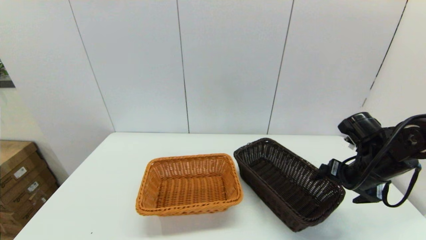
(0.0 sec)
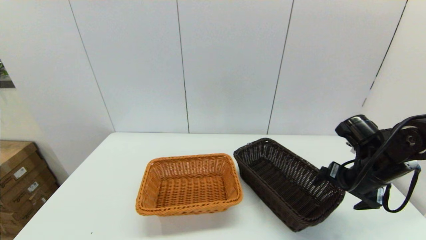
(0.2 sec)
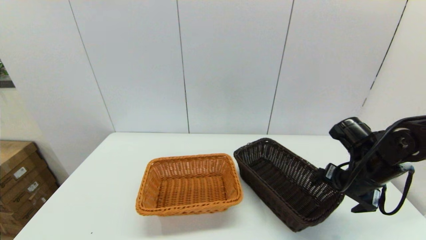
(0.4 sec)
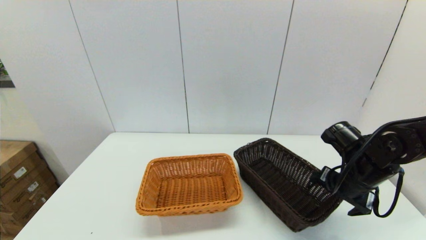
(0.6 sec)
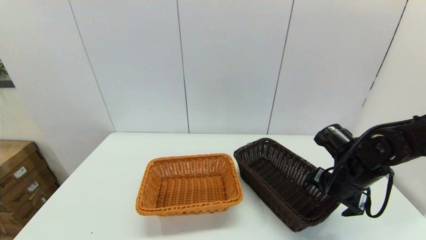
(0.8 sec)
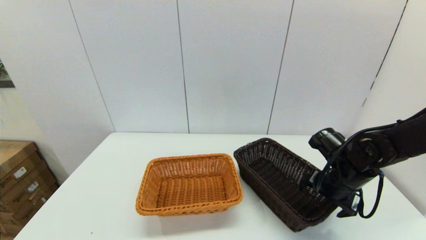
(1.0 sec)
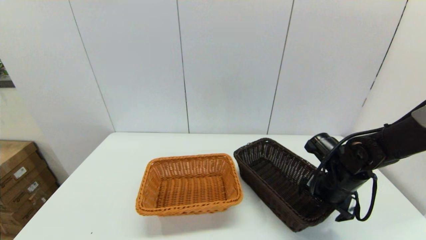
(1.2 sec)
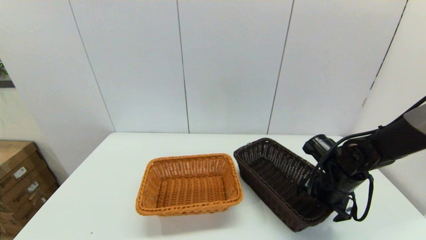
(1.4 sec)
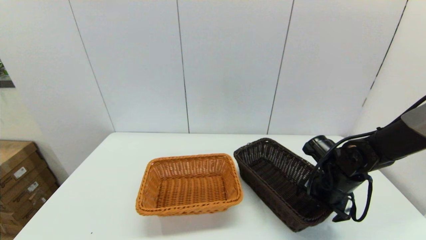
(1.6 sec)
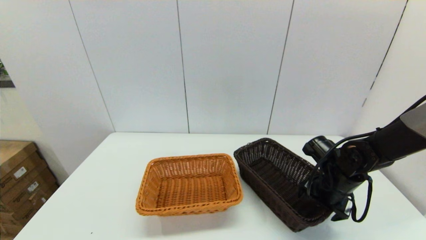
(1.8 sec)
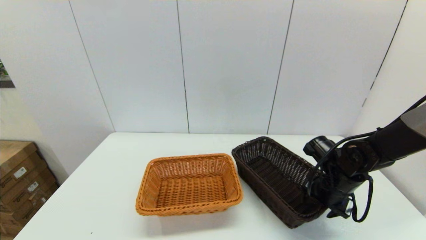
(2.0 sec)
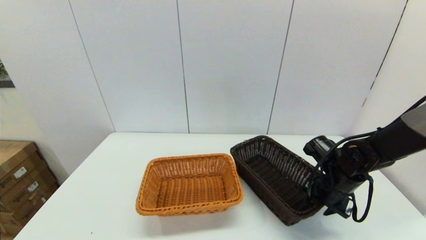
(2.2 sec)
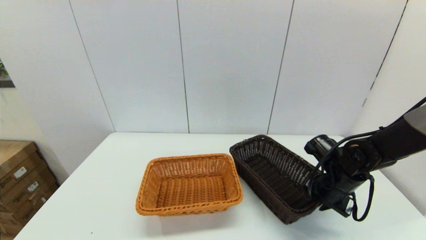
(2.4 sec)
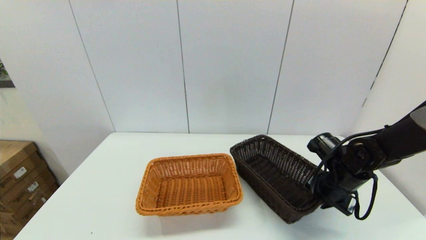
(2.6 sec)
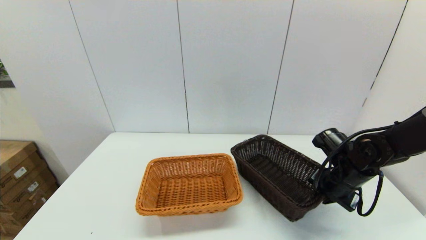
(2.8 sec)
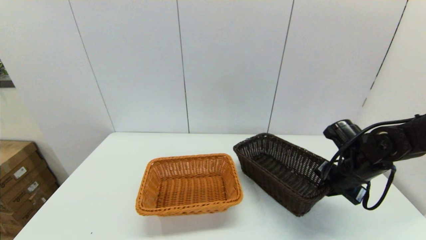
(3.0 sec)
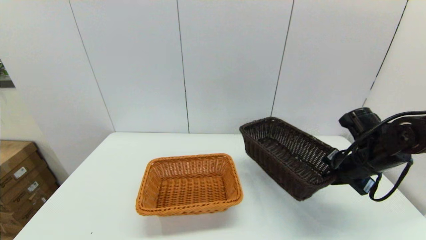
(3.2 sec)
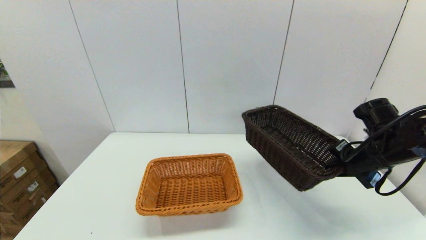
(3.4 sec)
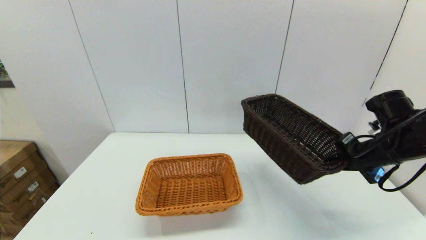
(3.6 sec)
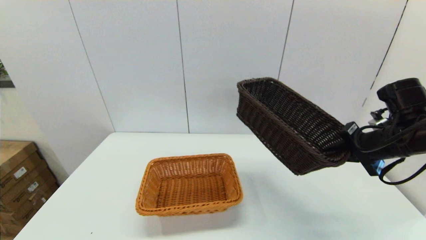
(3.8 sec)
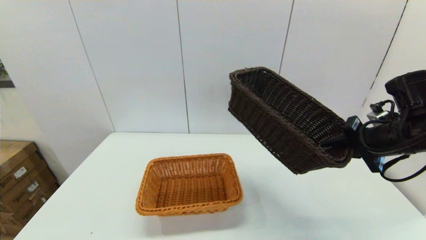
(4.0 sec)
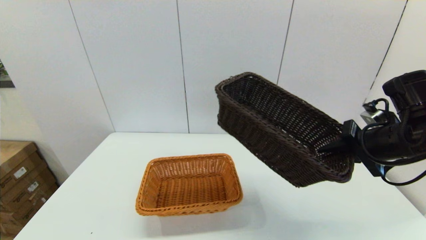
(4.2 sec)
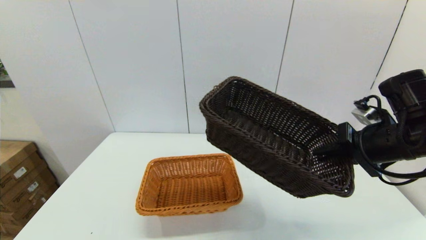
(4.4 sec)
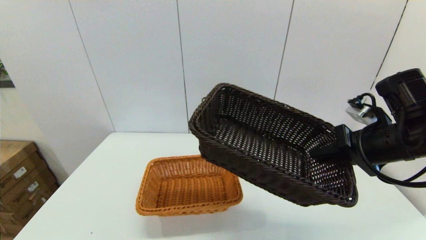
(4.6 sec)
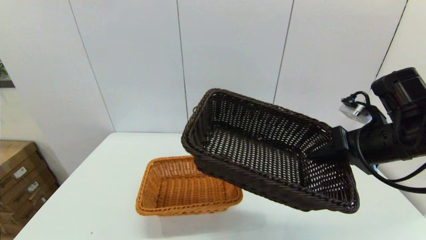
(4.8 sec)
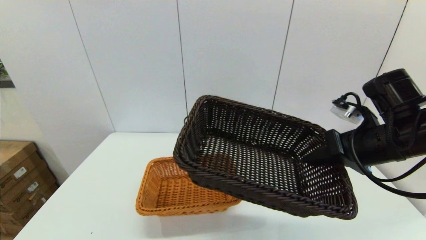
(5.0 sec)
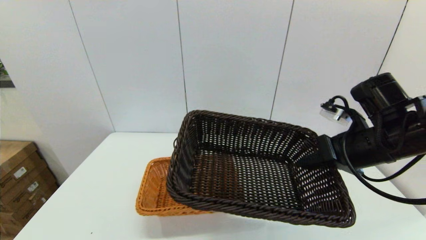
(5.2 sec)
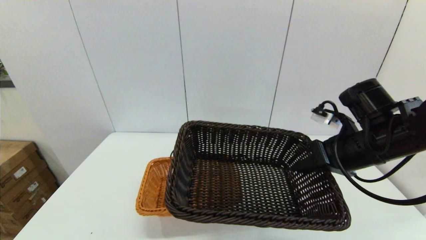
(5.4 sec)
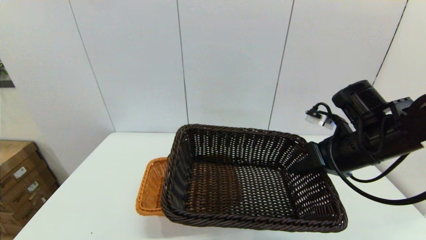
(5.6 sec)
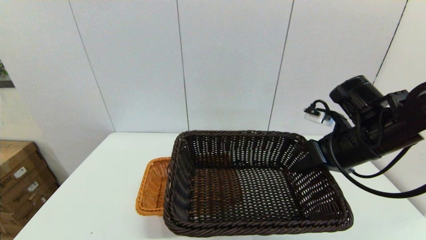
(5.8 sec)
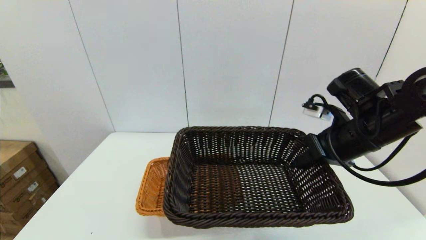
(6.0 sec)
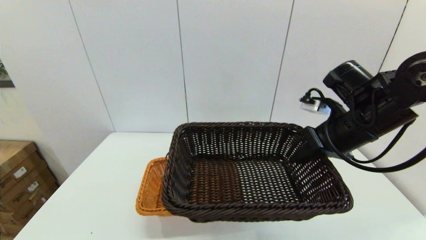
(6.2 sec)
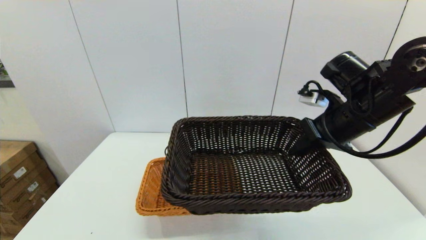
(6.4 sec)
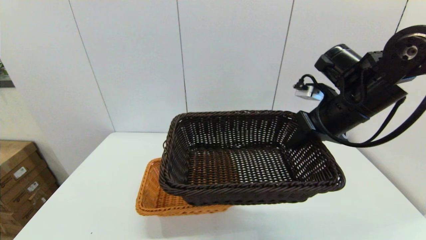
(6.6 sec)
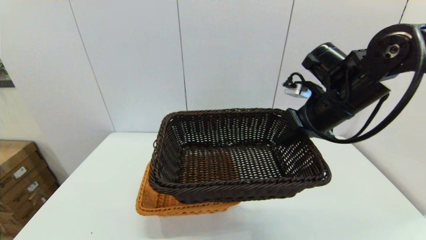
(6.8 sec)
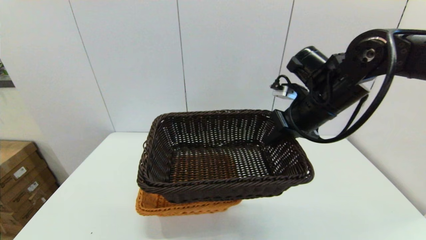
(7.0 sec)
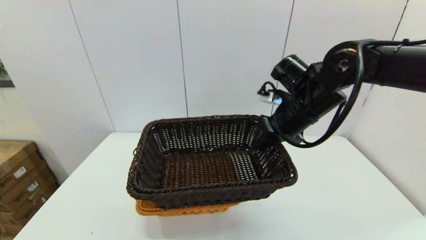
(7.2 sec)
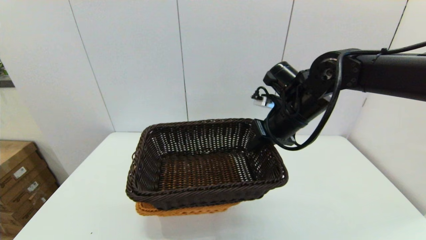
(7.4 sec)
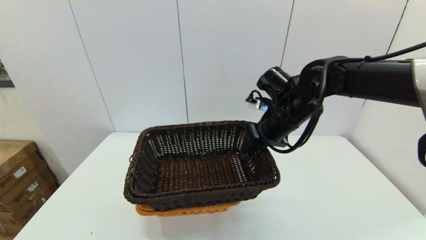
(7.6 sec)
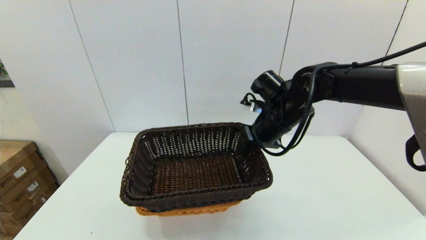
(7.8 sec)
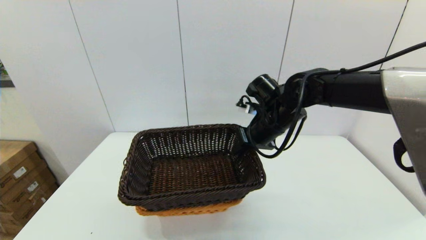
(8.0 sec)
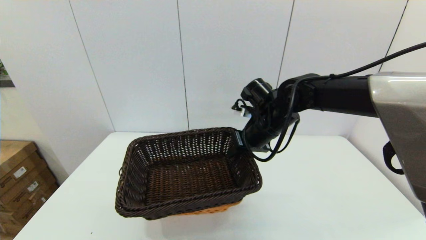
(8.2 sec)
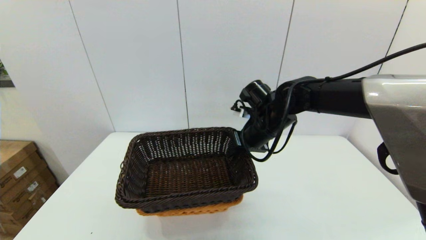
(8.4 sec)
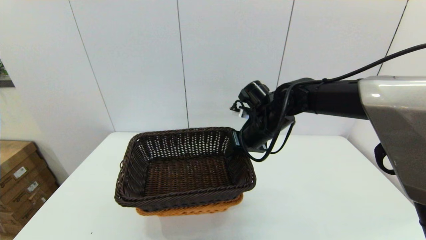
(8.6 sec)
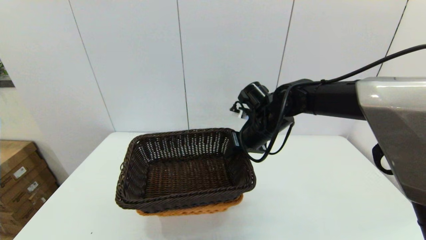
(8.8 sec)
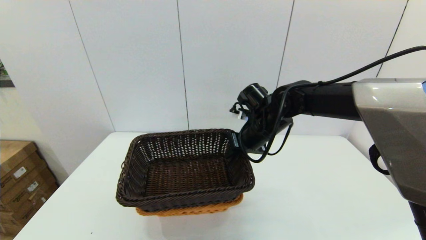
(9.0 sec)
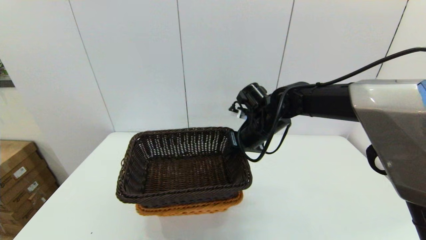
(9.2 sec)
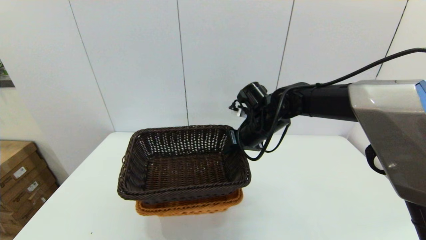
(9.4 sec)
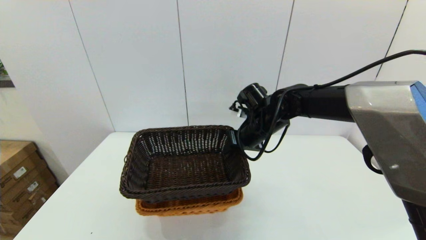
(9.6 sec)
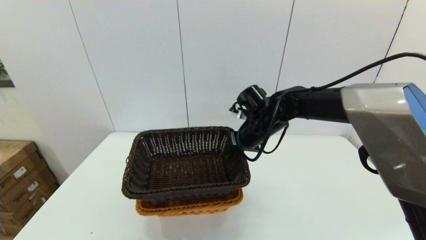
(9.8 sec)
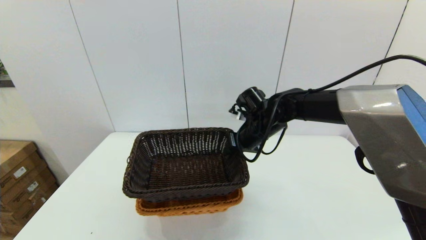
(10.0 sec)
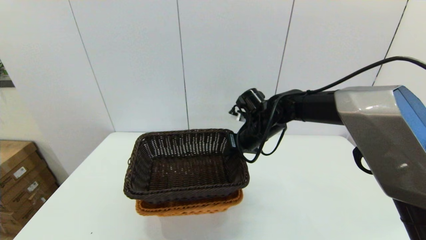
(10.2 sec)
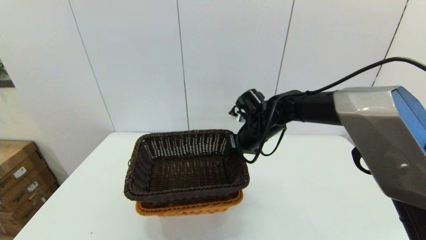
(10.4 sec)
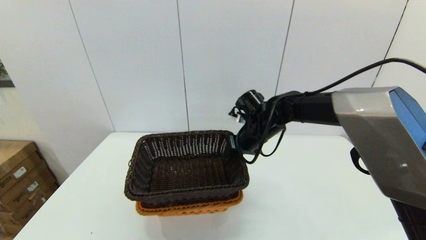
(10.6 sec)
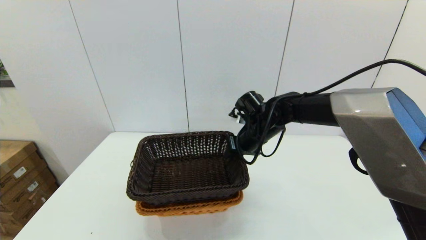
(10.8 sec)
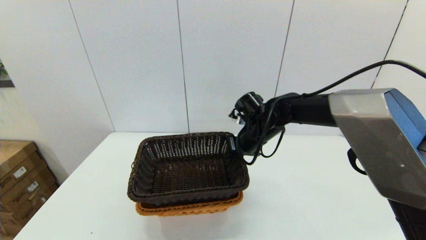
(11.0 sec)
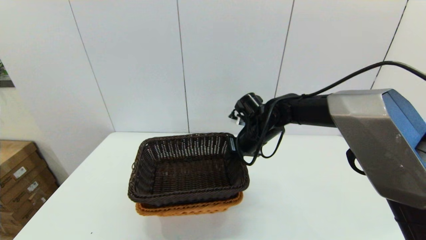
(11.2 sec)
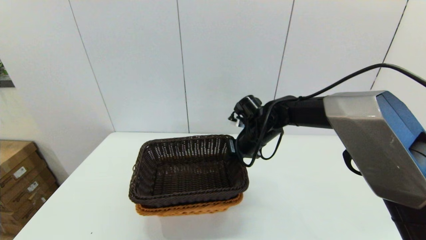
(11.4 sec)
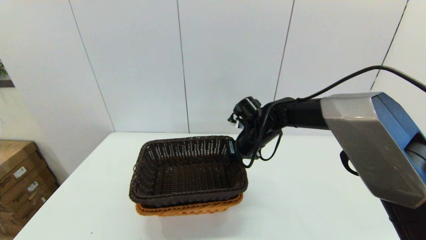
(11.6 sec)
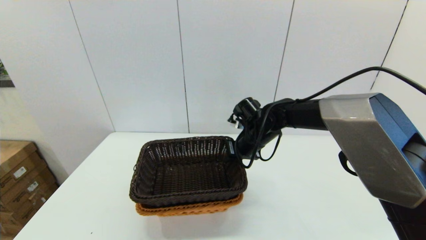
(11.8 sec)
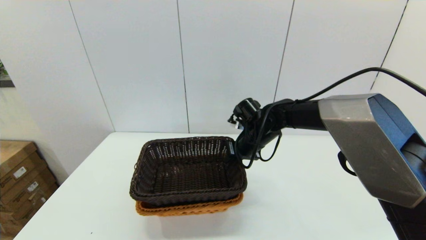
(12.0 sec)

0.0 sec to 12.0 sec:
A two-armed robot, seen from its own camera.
Task of the whole recording: stack a basket on top of another basket.
Step, 0.0 sec to 3.0 sec: Grasp the dark basket with the right gripper.
0.0 sec to 1.6 sec: The right gripper is displaced downward by some 5 cm.
1.6 sec to 3.0 sec: The right gripper changes place by some 5 cm, and closes its fingers.
3.0 sec to 4.4 sec: The right gripper goes roughly 15 cm upward and backward.
4.4 sec to 6.0 sec: The right gripper goes some 5 cm to the left.
6.0 sec to 7.6 sec: The right gripper heads to the left and forward, covering some 10 cm.
7.6 sec to 9.0 sec: The right gripper ends up about 5 cm from where it was.
9.0 sec to 12.0 sec: The grippers move only a little.

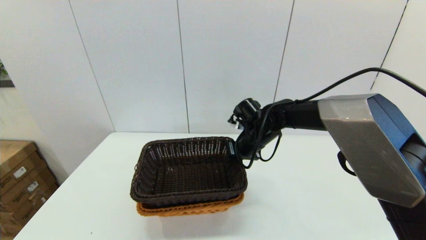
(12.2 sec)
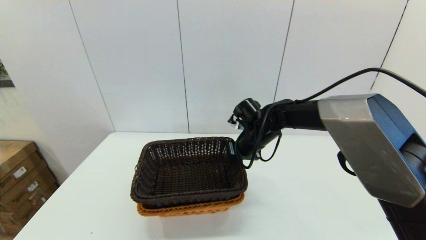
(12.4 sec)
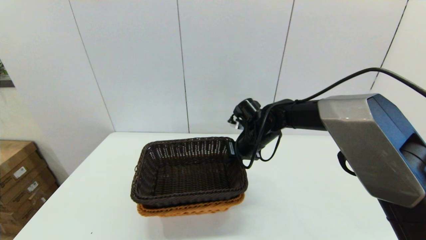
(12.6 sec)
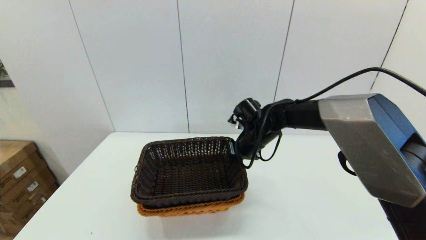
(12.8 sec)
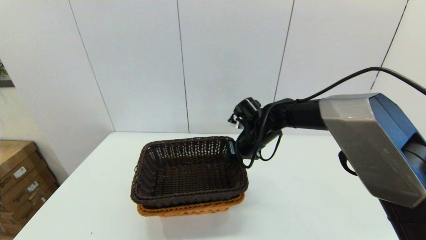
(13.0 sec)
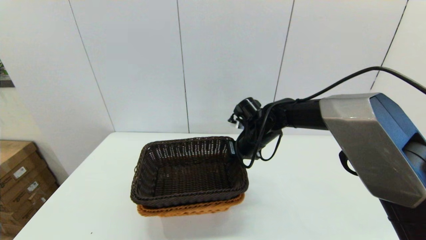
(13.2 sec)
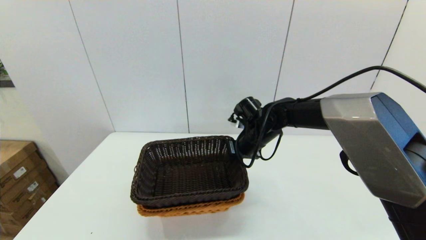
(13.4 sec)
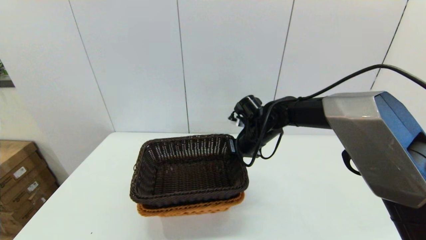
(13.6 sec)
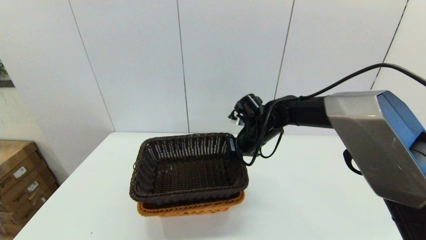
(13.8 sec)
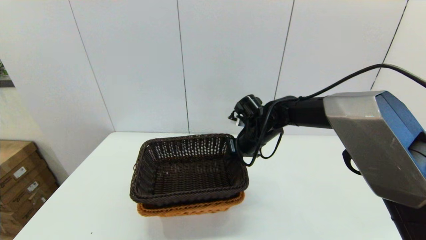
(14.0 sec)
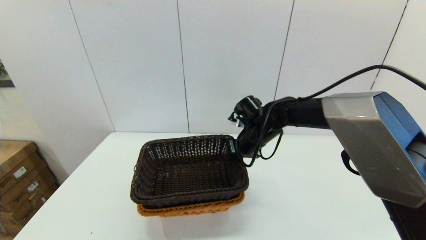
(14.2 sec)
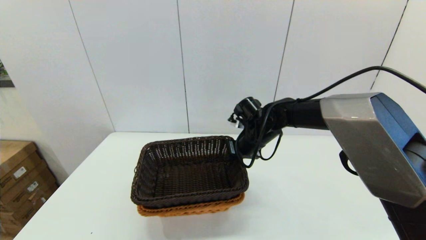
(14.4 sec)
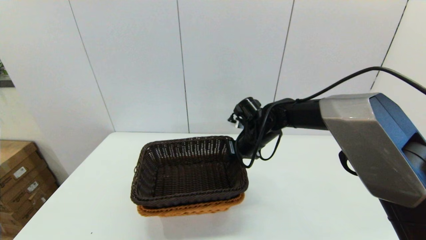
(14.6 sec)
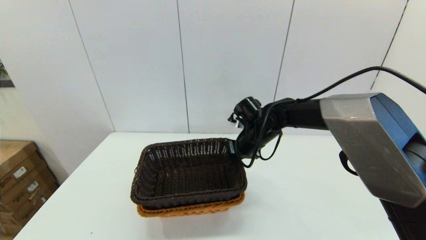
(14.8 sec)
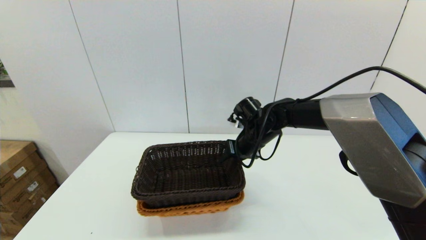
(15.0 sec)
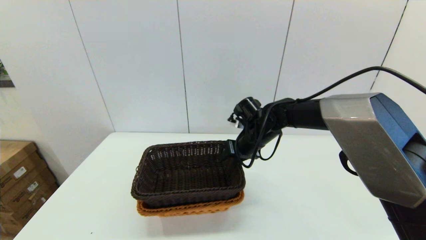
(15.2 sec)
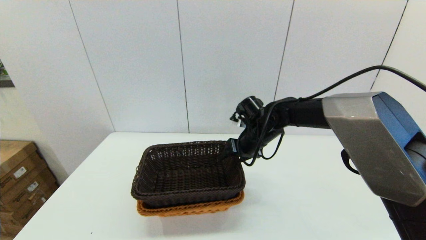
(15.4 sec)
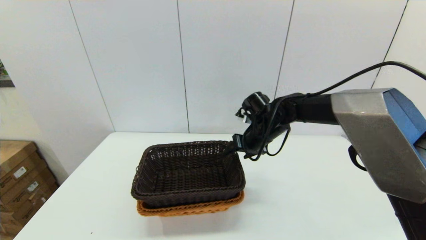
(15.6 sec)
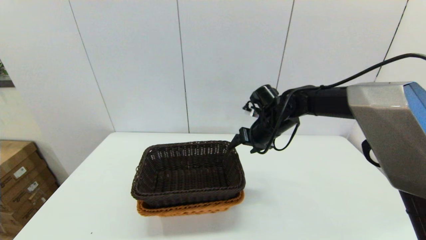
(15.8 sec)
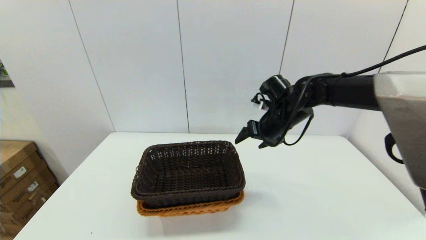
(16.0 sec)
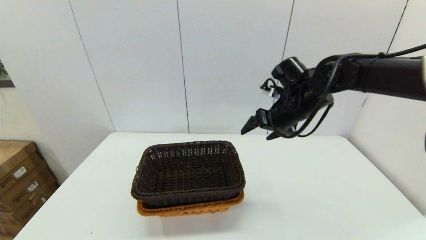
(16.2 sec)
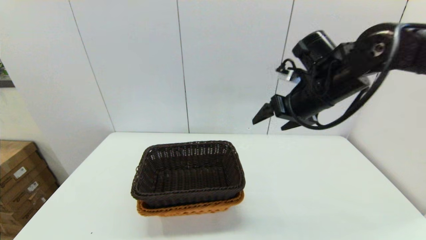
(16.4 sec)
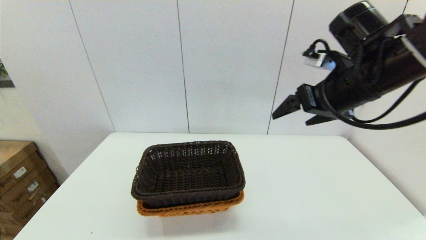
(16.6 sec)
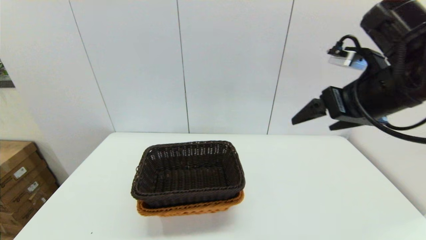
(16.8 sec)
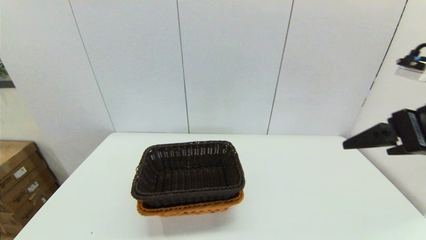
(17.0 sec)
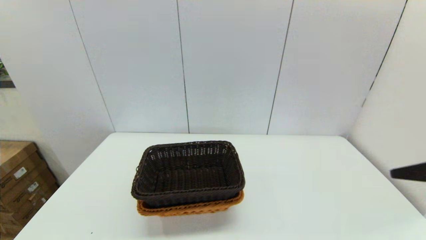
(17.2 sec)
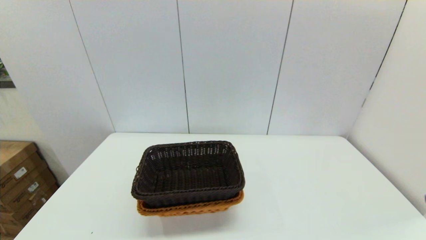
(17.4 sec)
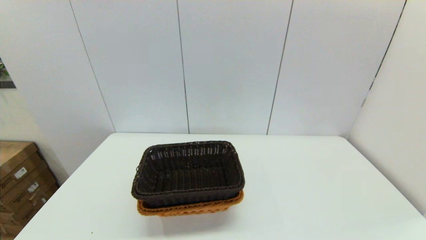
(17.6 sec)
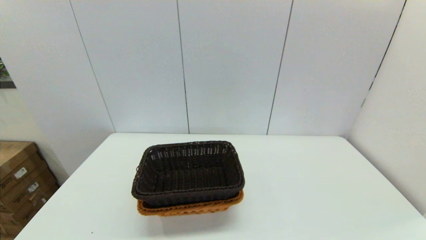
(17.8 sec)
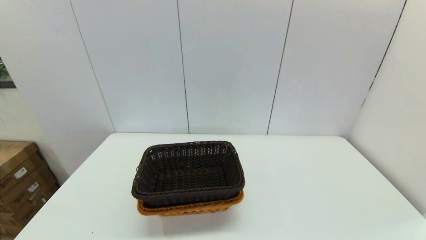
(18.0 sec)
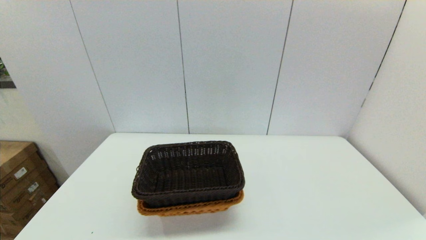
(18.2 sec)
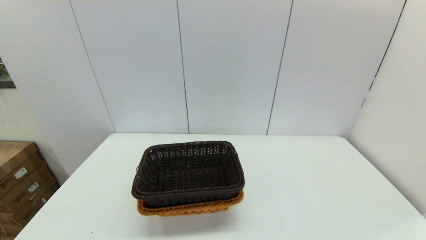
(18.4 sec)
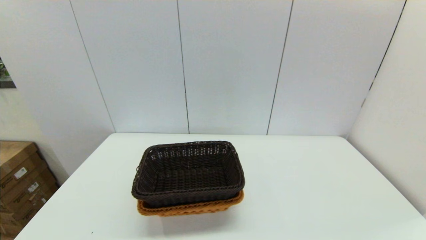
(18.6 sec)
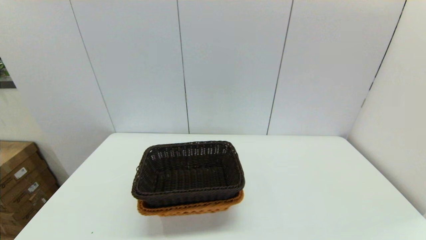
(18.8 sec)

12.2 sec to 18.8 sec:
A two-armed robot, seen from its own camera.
Task of the whole recording: stack a basket on top of another basket.
Step, 12.2 sec to 16.8 sec: Place the dark basket into the light color basket with the right gripper.
12.2 sec to 13.8 sec: Neither gripper changes place.
13.8 sec to 15.4 sec: The right gripper opens.
15.4 sec to 17.2 sec: The right gripper travels backward, upward and to the right by roughly 40 cm.
